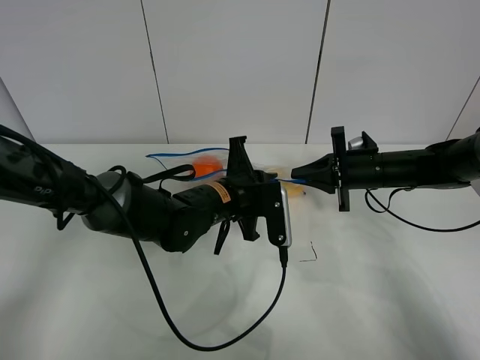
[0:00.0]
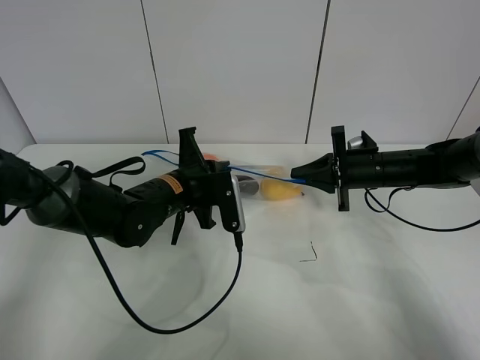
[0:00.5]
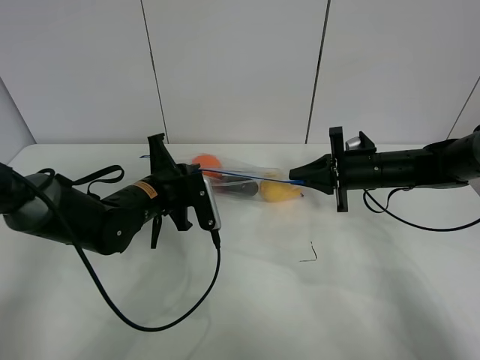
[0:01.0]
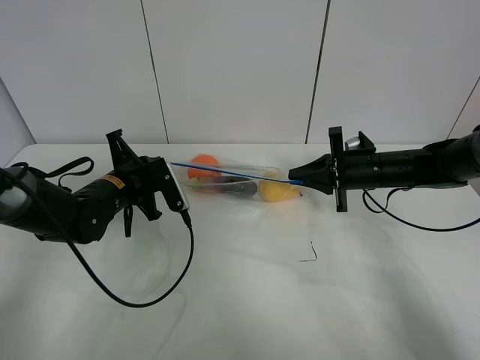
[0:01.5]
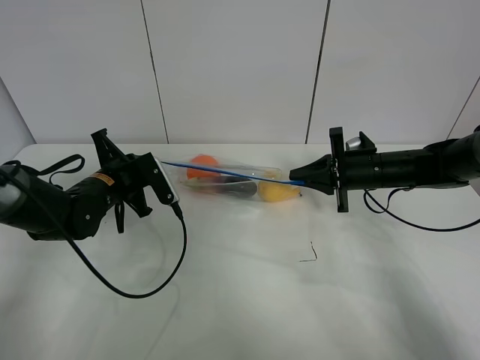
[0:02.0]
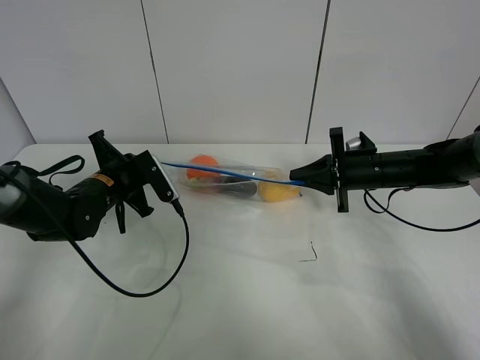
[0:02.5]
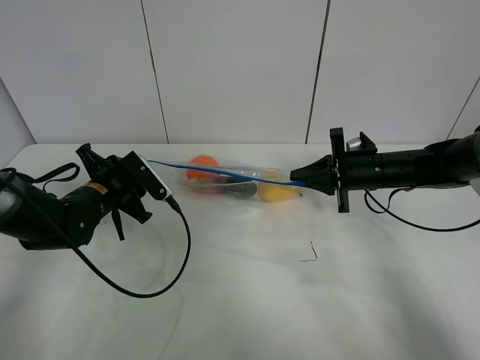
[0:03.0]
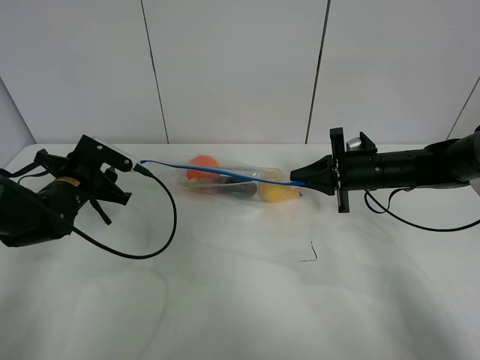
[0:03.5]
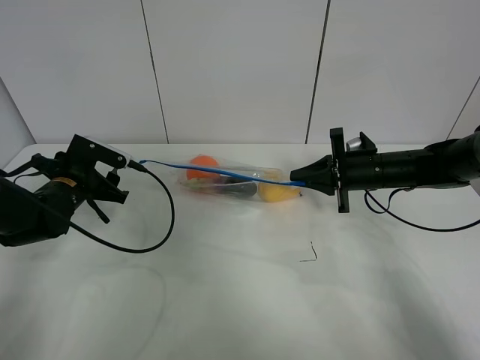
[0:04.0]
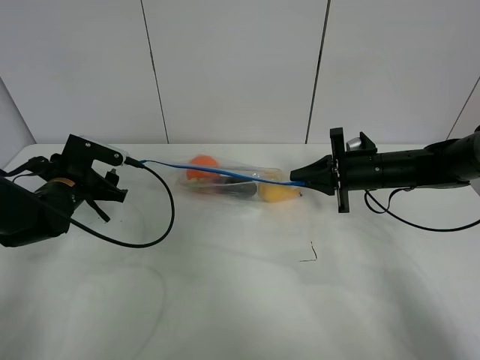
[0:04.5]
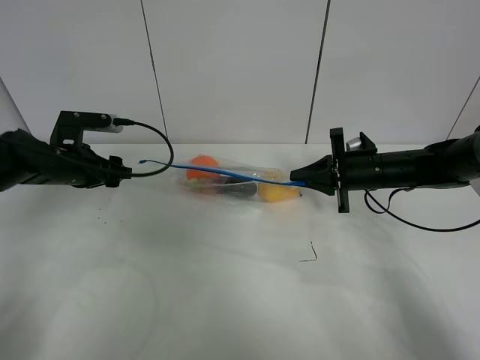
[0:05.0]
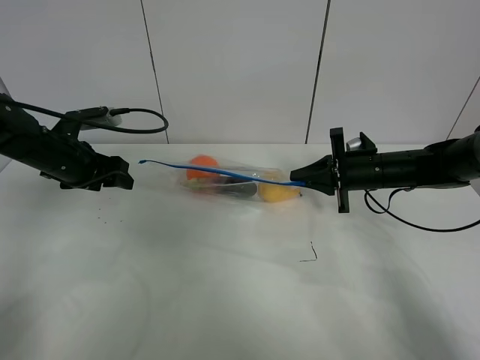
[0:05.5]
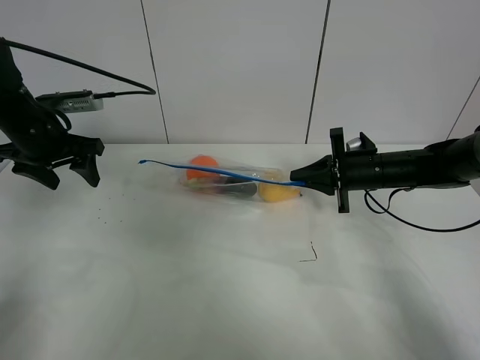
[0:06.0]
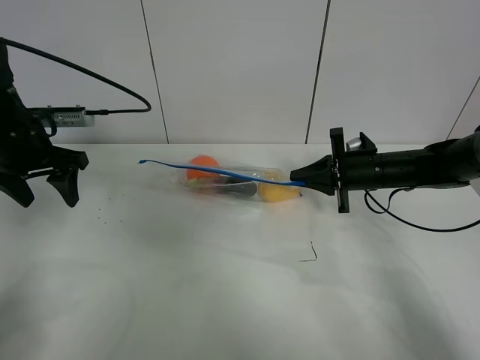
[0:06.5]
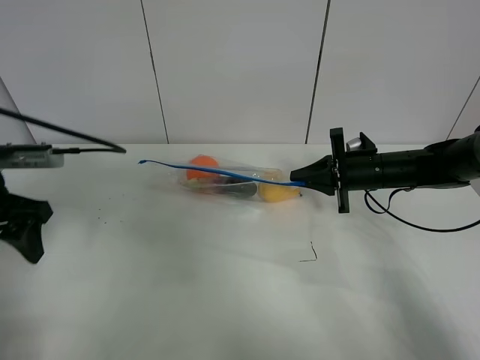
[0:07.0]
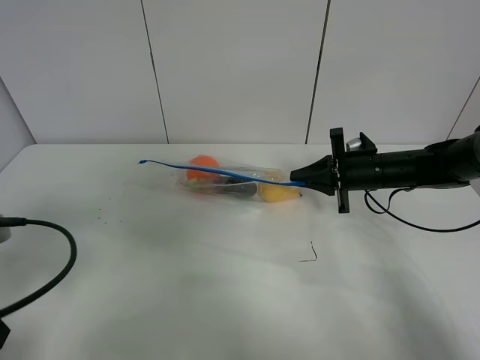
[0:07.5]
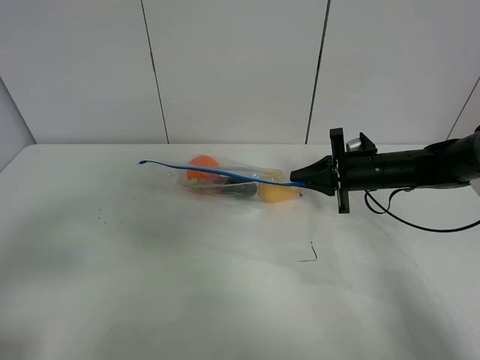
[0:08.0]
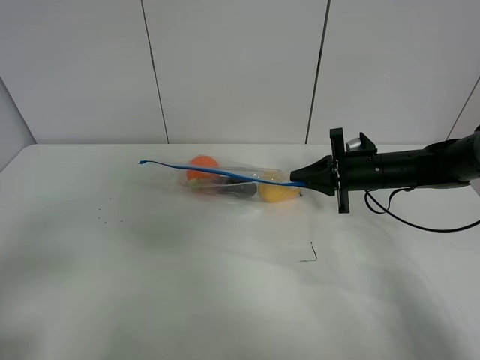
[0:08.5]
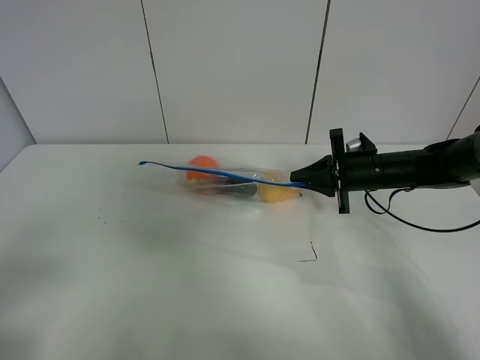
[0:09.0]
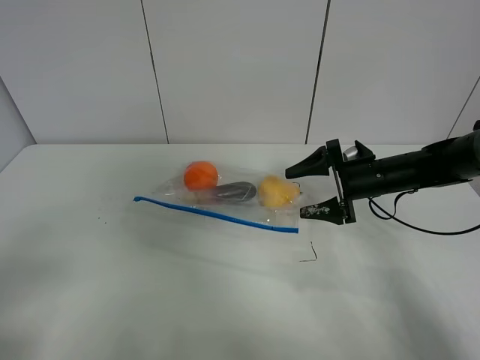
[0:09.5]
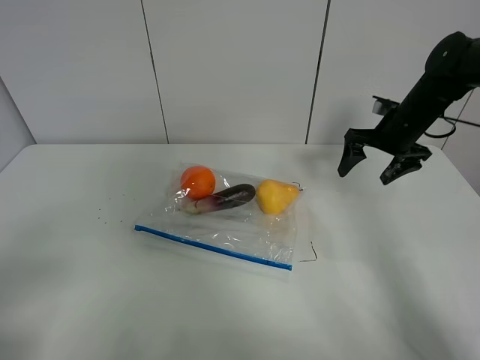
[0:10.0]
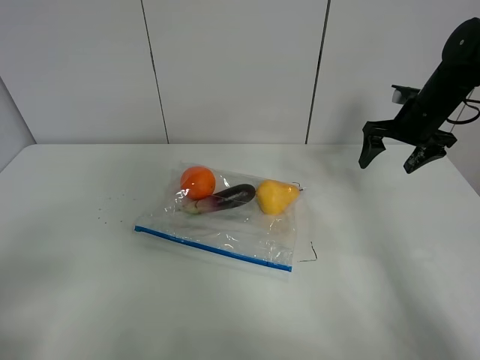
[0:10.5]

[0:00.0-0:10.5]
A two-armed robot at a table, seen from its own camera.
Step, 0:00.0 to 0:03.0: Pull the fruit bag with left gripper.
0:00.0 to 0:02.0: The left gripper travels to the left by approximately 20 cm.
0:02.0 to 0:04.0: The left gripper shifts about 5 cm to the left, and opens.
0:04.0 to 0:06.5: The left gripper is displaced upward by some 10 cm.
0:06.5 to 0:08.5: The left gripper heads backward, covering roughly 30 cm.
0:08.5 to 0:10.5: The right gripper travels upward, to the right and forward by some 15 cm, and opens up.

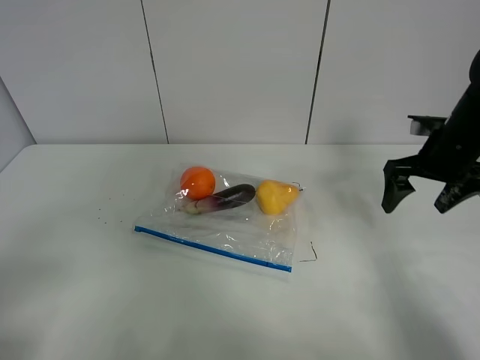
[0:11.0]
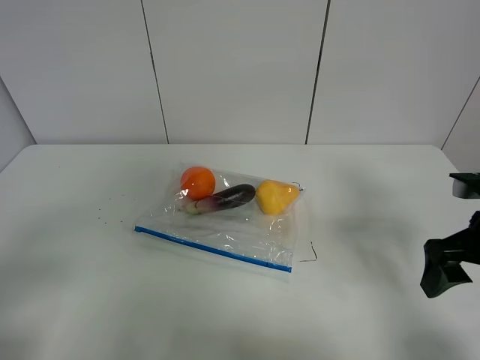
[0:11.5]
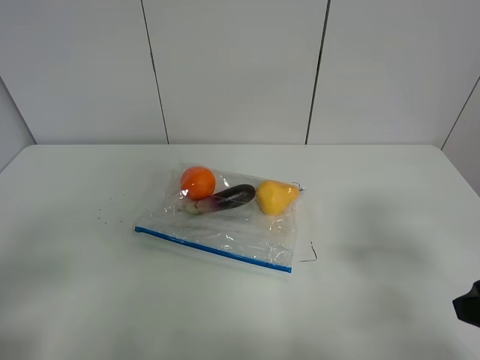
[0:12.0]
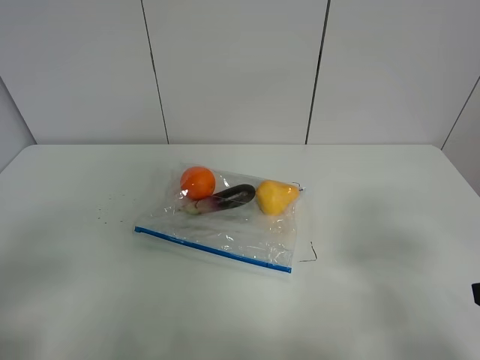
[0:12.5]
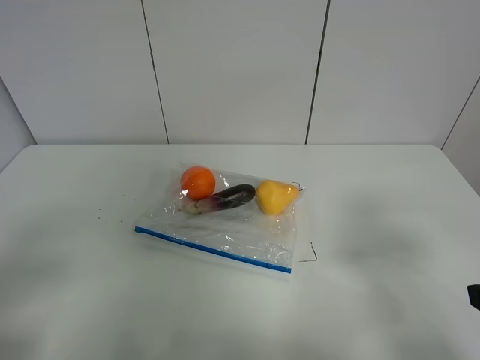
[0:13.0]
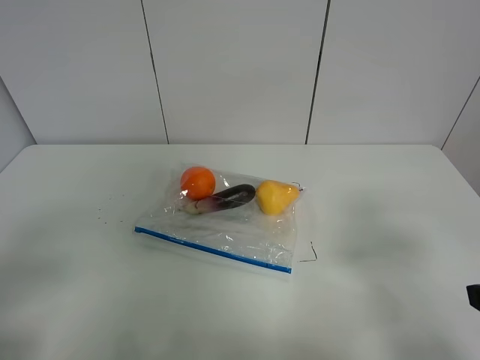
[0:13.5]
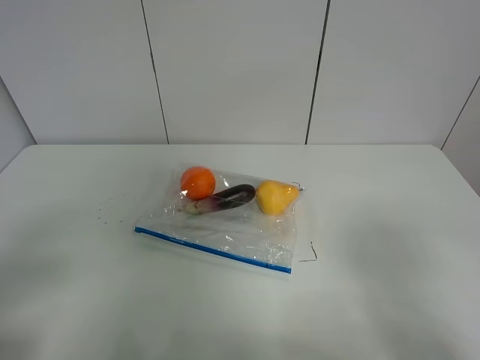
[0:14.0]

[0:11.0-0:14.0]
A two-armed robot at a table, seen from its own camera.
0:11.0 to 0:12.5: The right gripper shifts roughly 25 cm backward.

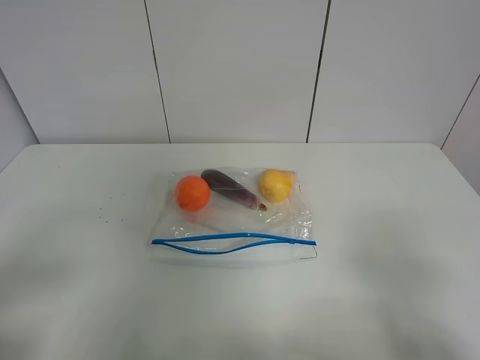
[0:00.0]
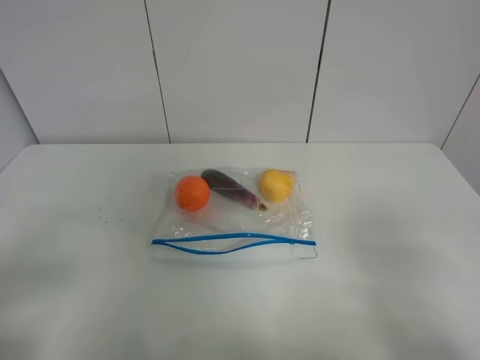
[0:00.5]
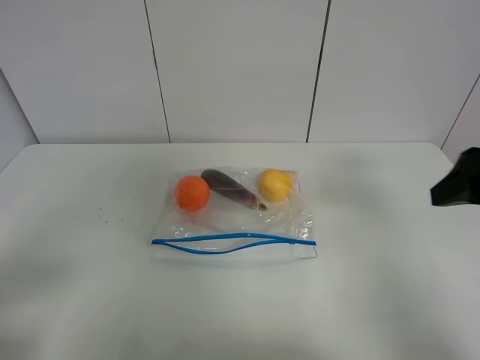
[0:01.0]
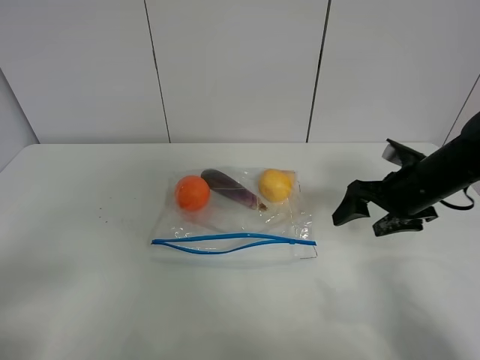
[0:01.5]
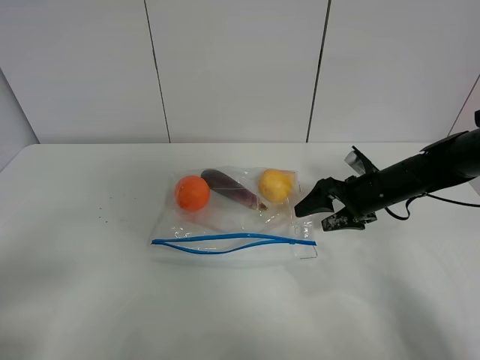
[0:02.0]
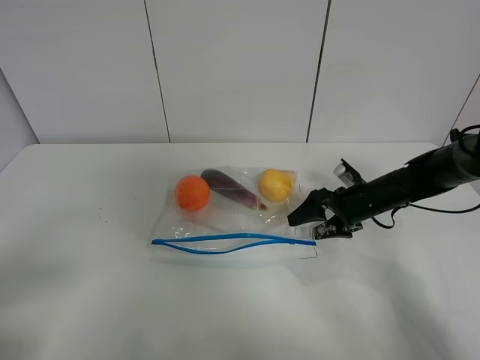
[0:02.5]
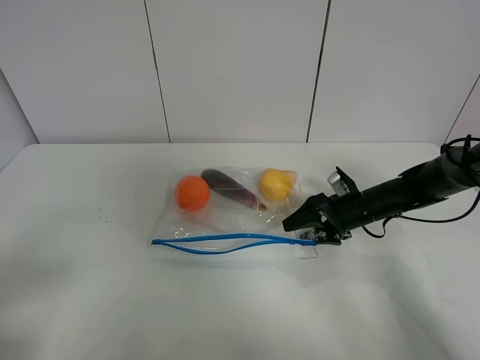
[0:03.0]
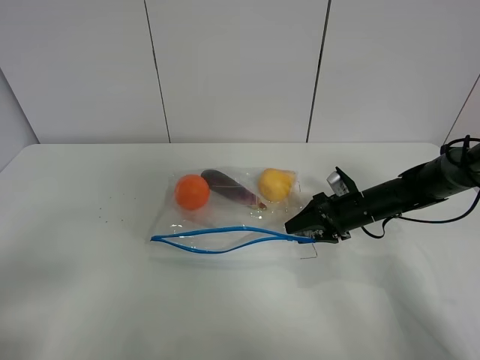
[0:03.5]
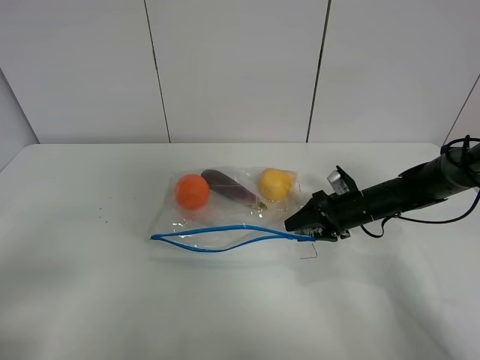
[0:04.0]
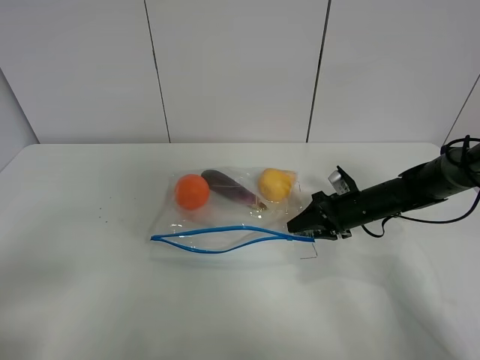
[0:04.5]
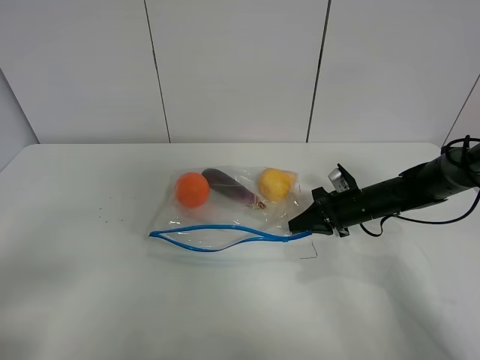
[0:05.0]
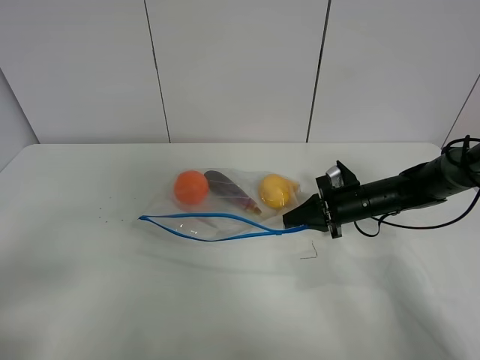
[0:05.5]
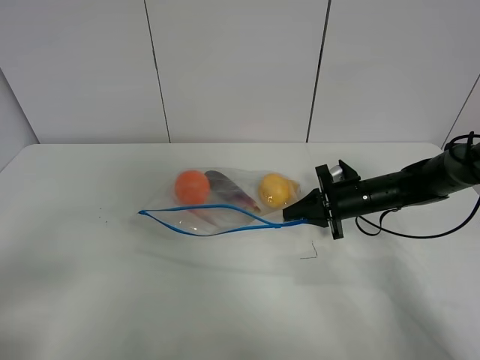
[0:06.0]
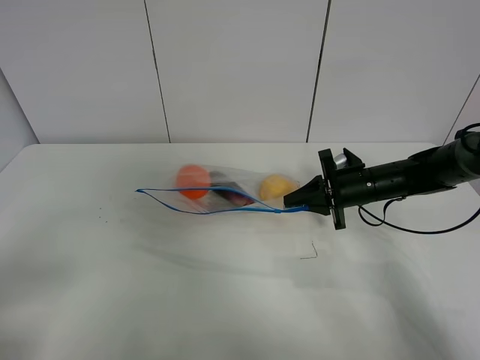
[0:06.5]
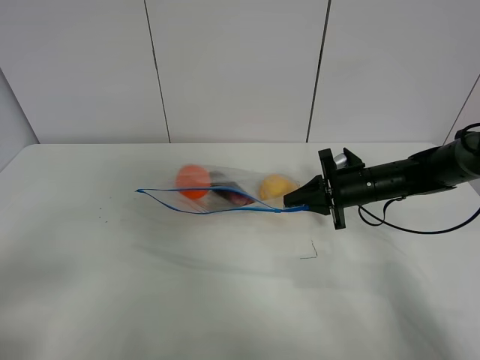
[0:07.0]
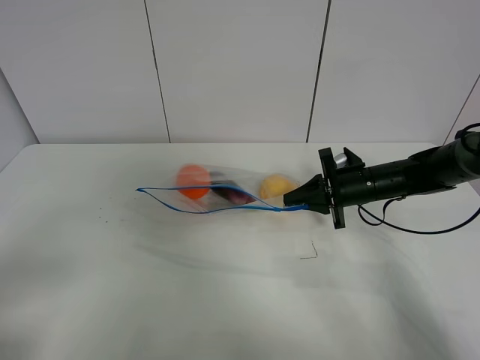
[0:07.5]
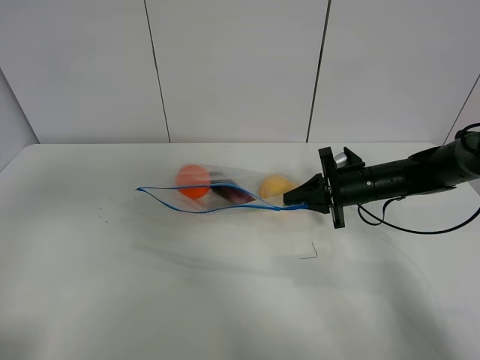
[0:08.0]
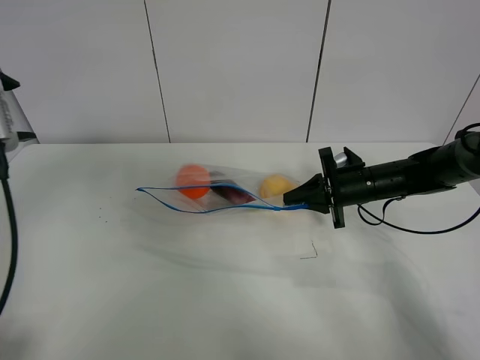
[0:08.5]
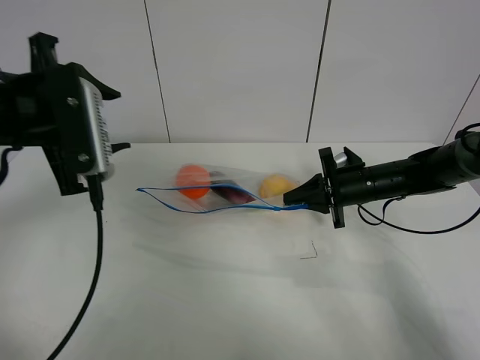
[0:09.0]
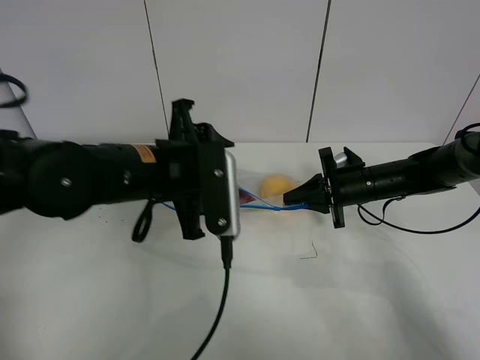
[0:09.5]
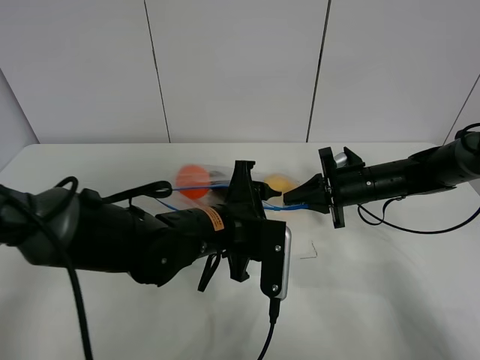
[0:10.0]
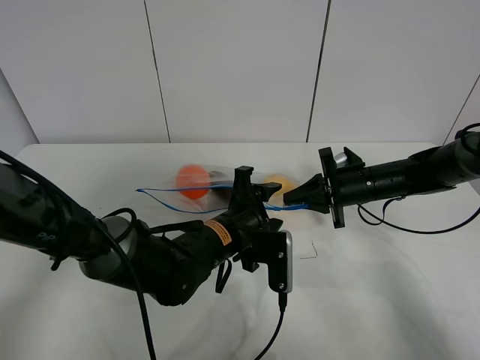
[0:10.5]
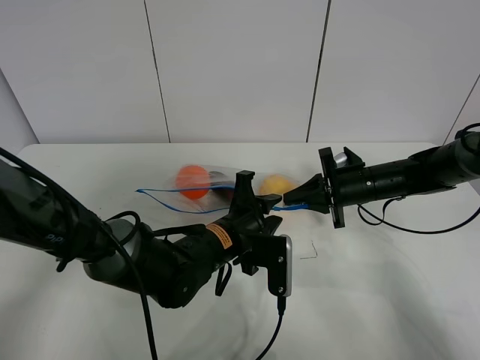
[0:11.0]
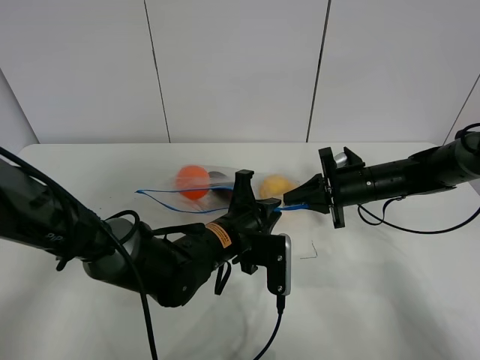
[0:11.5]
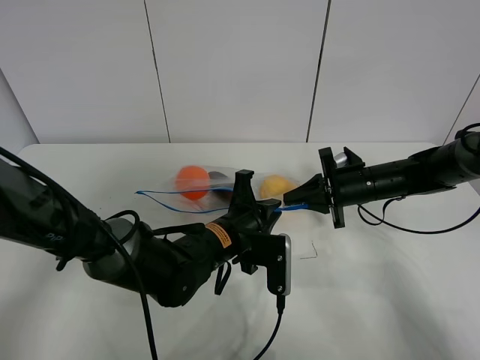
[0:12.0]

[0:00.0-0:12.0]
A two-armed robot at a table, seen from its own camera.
Step, 0:00.0 to 0:04.5: Grasp the fruit bag with right gripper.
Step, 0:05.0 to 0:07.0: Lift the fruit bag with your right gripper.
0:00.0 to 0:02.0: The right gripper goes about 40 cm forward and downward.
0:02.0 to 0:04.0: The right gripper moves downward, about 5 cm.
0:04.0 to 0:06.0: The right gripper closes.
0:06.0 to 0:08.0: The left gripper goes some 15 cm upward and forward.
0:08.0 to 0:10.0: The left gripper is displaced to the right, downward and forward by about 40 cm.
0:10.0 to 0:12.0: The left gripper closes.
